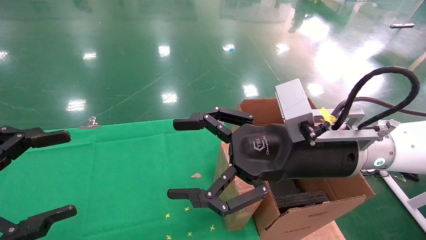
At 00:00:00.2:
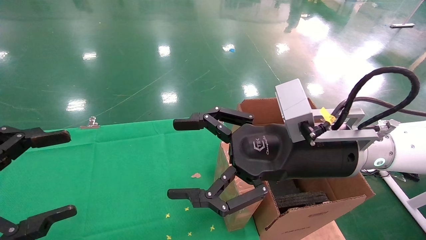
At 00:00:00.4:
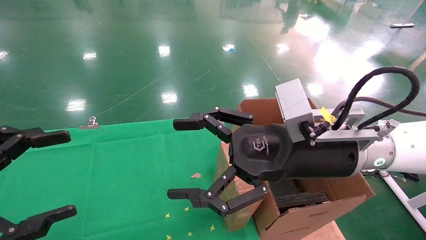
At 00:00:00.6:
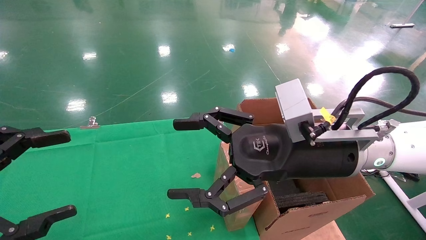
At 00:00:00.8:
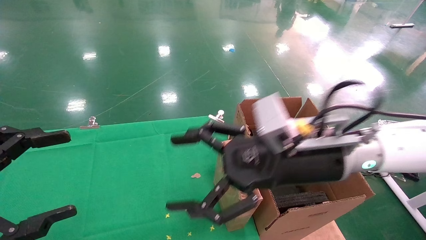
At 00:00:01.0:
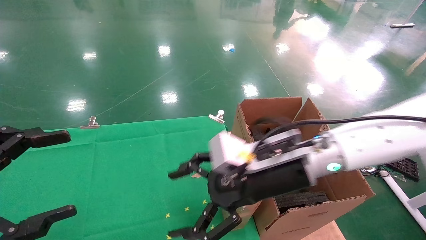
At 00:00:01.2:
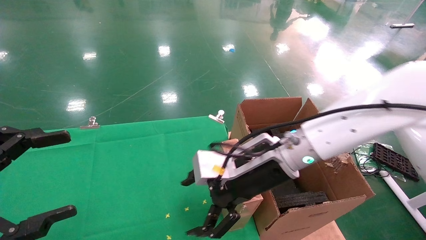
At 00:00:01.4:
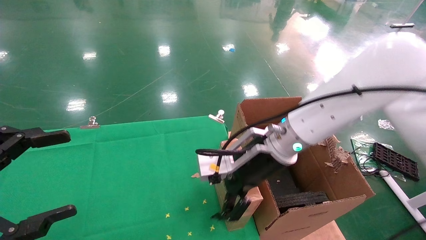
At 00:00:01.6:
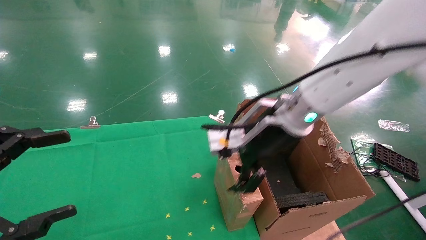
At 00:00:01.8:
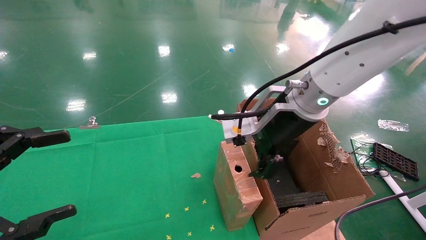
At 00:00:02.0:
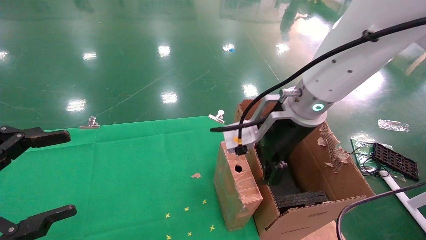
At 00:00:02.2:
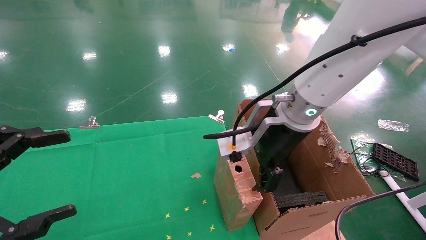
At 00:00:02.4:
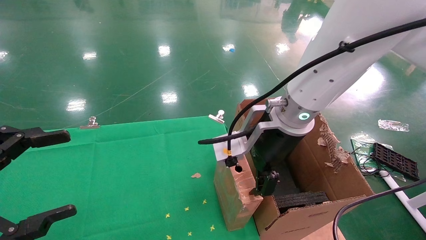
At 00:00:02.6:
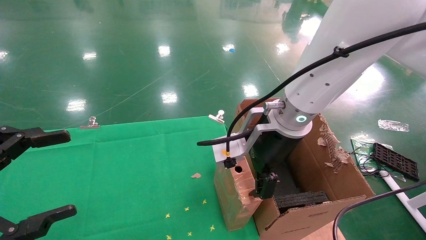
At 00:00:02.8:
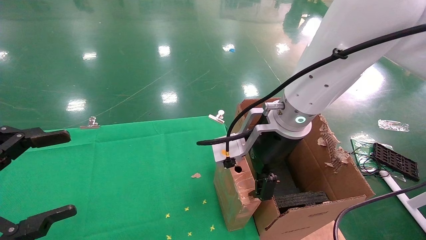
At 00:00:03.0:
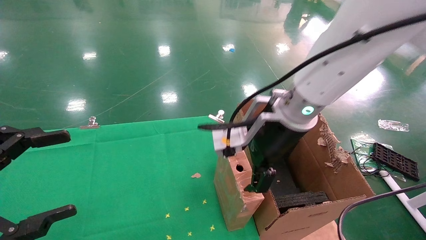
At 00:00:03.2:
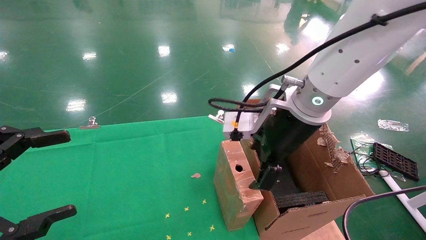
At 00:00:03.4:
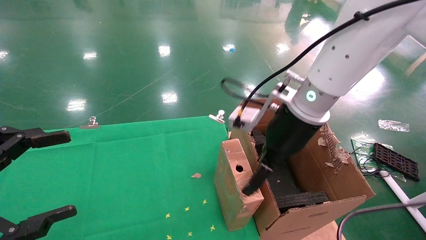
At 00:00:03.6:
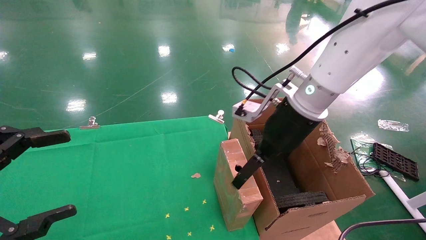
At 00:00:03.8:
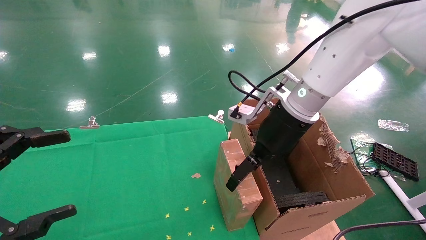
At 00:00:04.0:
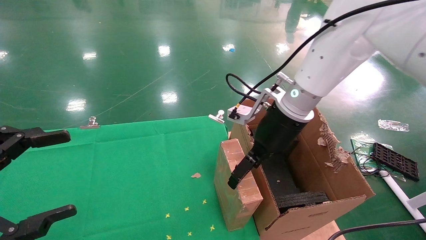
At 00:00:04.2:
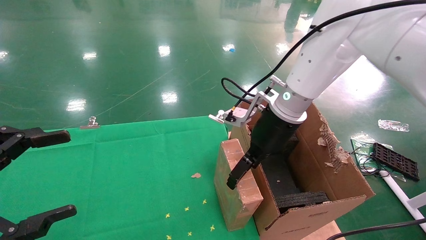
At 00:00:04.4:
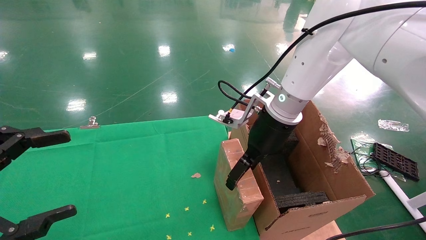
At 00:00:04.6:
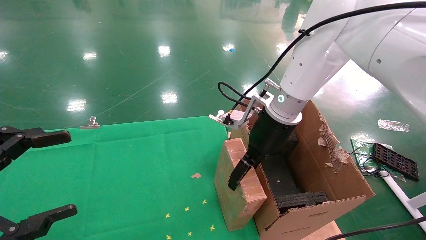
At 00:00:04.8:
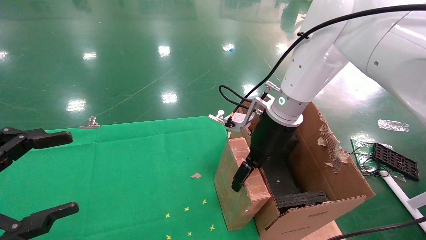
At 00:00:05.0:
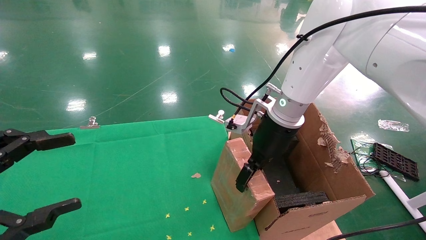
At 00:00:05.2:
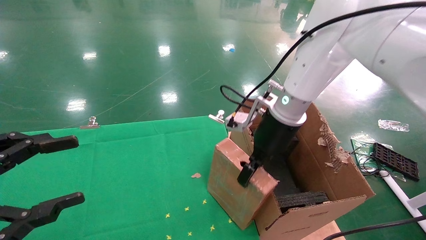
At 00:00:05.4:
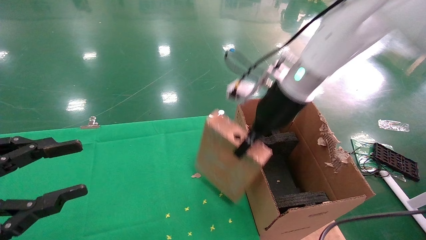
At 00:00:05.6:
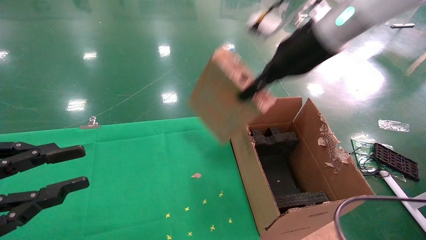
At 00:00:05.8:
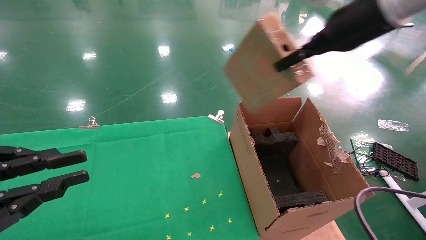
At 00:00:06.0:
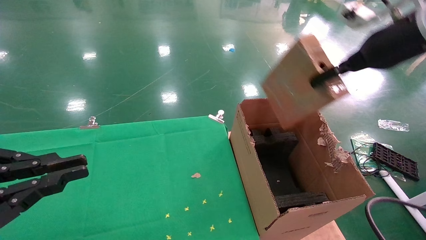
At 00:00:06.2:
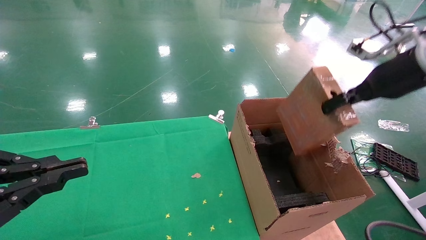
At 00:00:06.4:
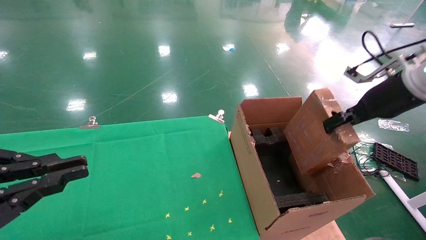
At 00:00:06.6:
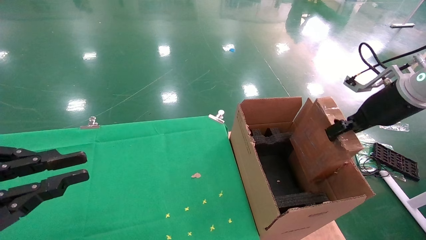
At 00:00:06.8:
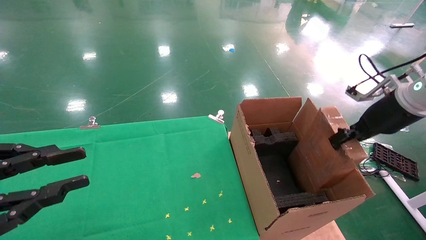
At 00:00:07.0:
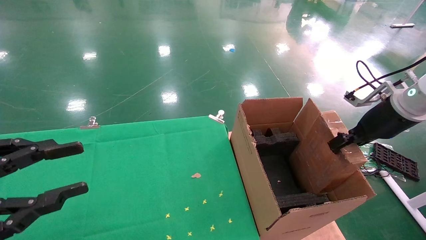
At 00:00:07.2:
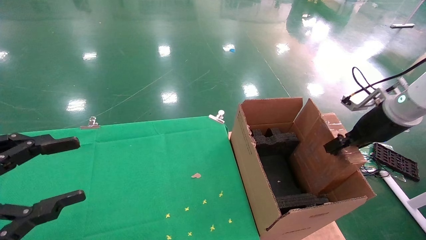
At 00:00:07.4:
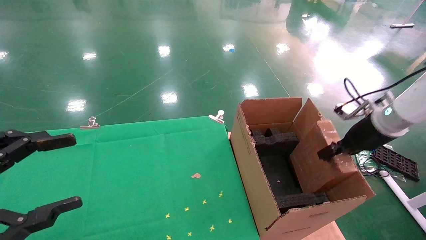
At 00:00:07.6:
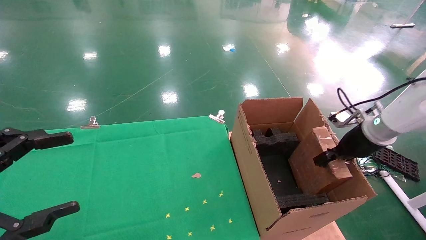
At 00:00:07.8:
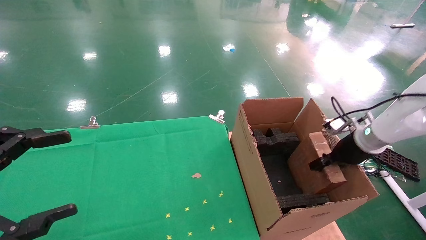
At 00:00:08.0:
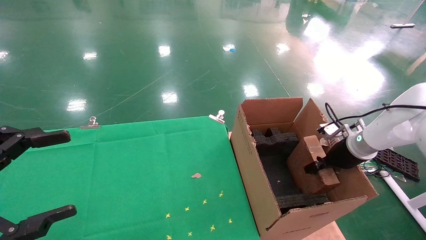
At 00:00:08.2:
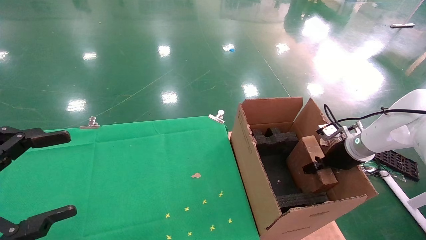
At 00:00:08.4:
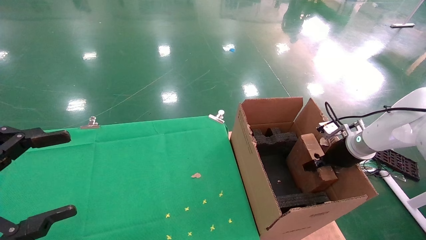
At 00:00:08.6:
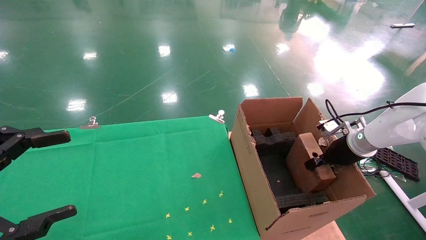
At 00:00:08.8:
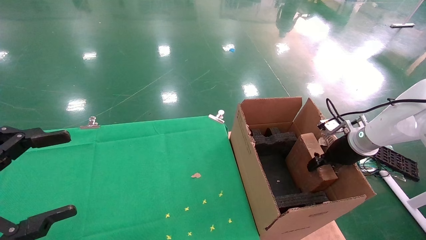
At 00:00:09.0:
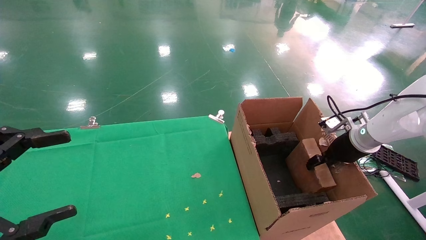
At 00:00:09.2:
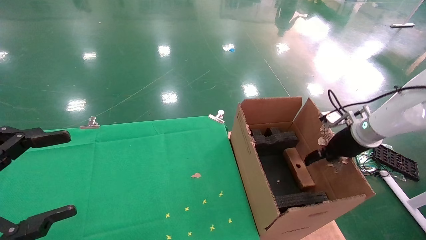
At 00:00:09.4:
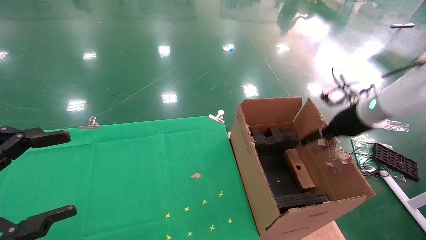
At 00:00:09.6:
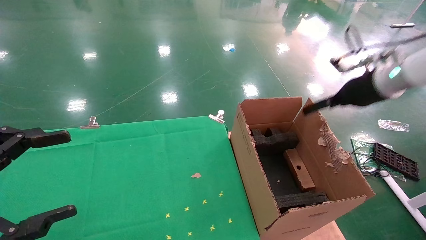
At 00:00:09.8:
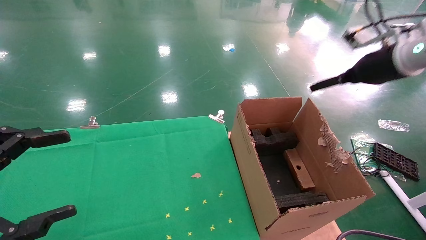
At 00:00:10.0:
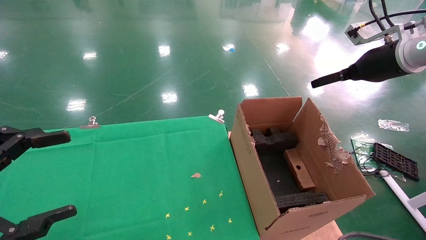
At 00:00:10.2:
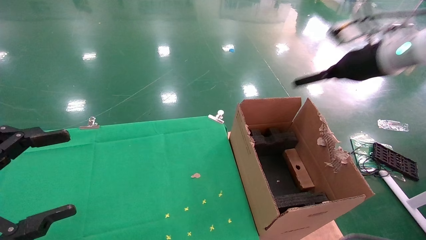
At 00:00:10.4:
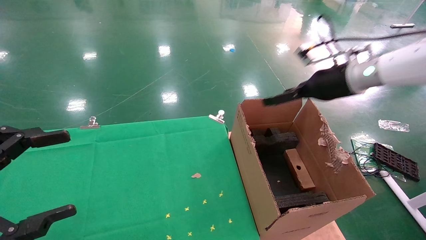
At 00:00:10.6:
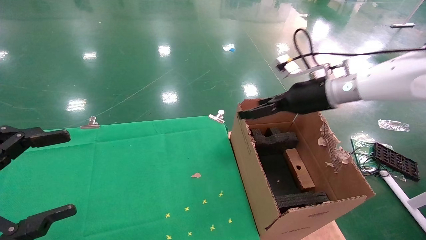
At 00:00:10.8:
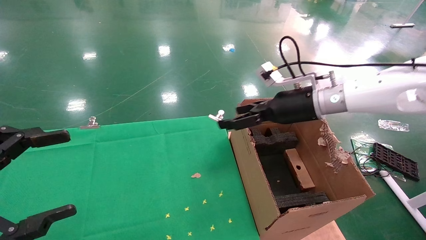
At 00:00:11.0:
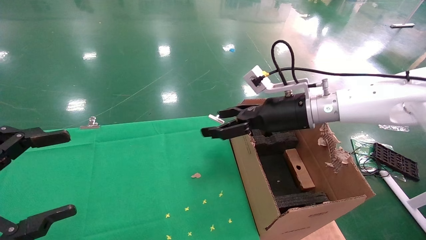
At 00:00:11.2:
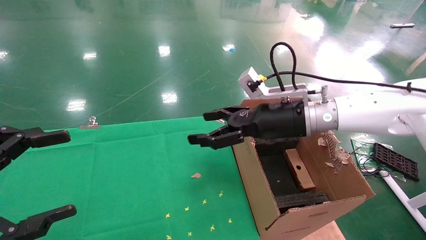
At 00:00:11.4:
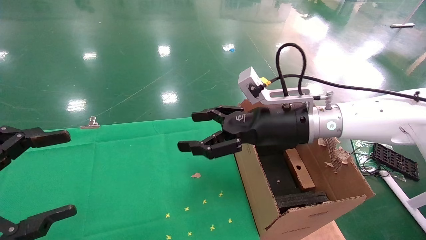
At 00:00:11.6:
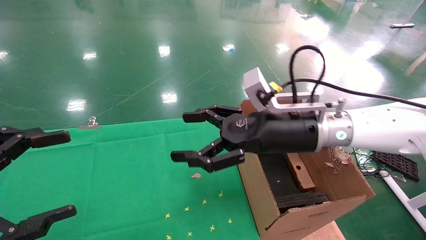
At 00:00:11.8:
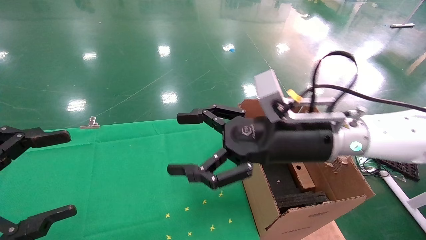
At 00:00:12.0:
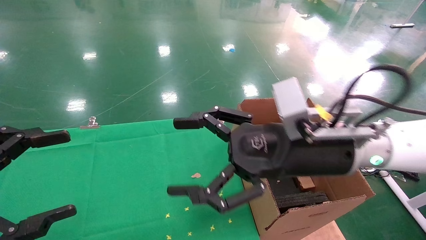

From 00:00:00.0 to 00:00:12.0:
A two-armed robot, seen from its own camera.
Task of the whole recording: using a robotic arm to pick up a cardboard box and palace it the carton.
Step, from 00:00:01.0 to 00:00:05.2: Pick up the mouse and the power cord paper box.
Step, from 00:00:05.4 to 00:00:09.8: Place the mouse and the power cord paper box into the container.
From 00:00:00.0 to 00:00:01.6: The right gripper heads forward, covering roughly 10 cm.
From 00:00:01.6 to 00:00:03.0: The grippers make only small movements.
From 00:00:03.0 to 00:00:04.4: The right gripper shifts about 5 cm forward.
From 00:00:04.4 to 00:00:06.0: The left gripper closes its fingers. The right gripper travels to the right and upward by some 20 cm, and closes up.
From 00:00:06.0 to 00:00:07.6: The left gripper opens its fingers; the right gripper goes approximately 20 cm downward.
From 00:00:07.6 to 00:00:09.0: The grippers move only a little.
From 00:00:09.0 to 00:00:10.4: The right gripper is displaced upward and to the left by about 15 cm, and opens up.
From 00:00:10.4 to 00:00:12.0: The right gripper heads to the left and backward, covering approximately 20 cm.

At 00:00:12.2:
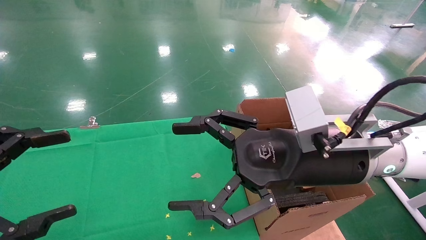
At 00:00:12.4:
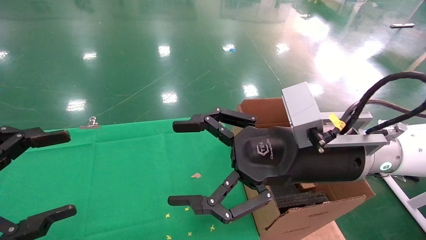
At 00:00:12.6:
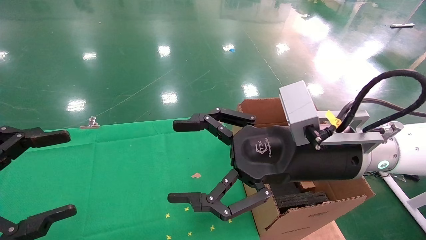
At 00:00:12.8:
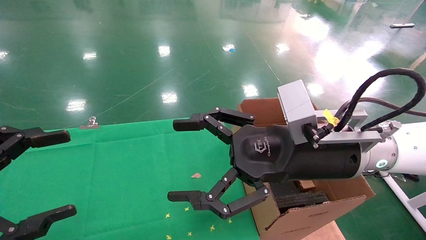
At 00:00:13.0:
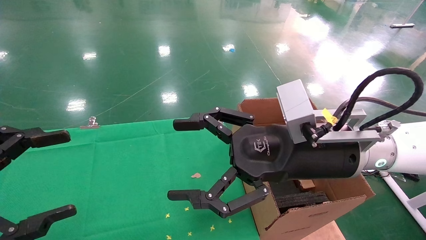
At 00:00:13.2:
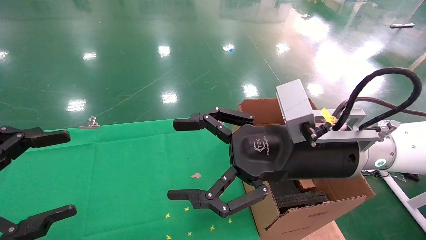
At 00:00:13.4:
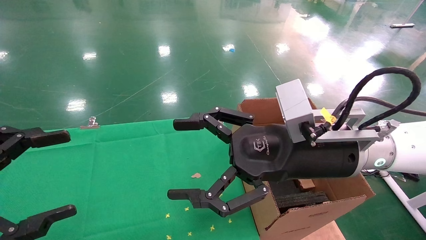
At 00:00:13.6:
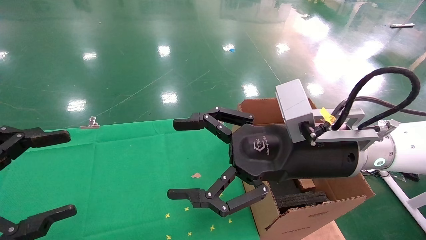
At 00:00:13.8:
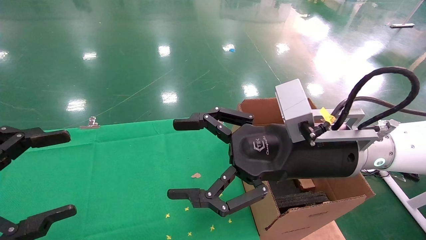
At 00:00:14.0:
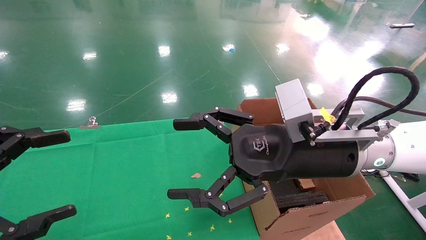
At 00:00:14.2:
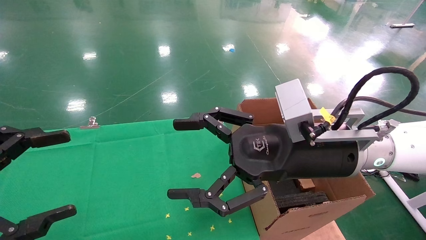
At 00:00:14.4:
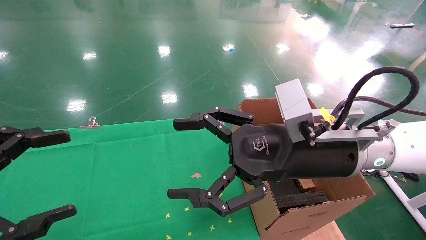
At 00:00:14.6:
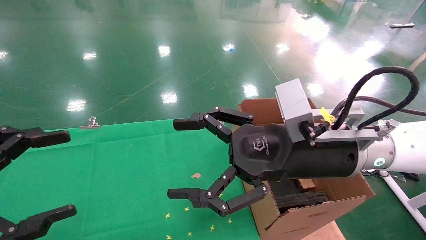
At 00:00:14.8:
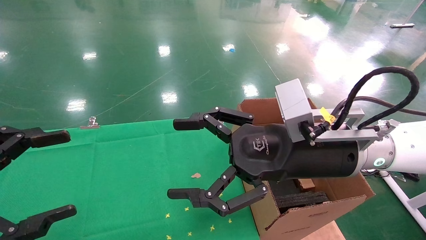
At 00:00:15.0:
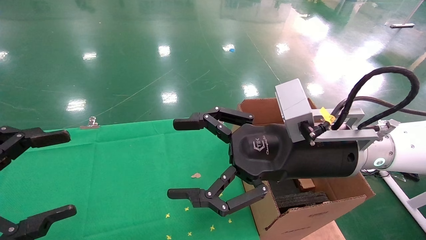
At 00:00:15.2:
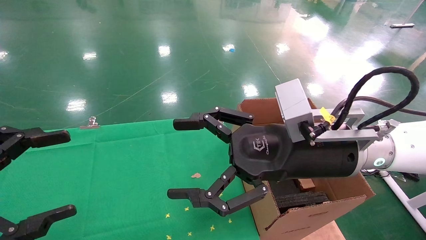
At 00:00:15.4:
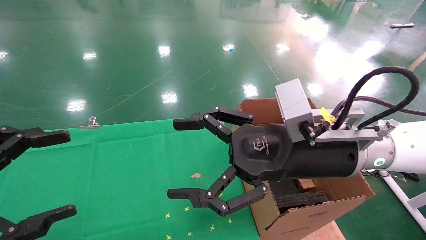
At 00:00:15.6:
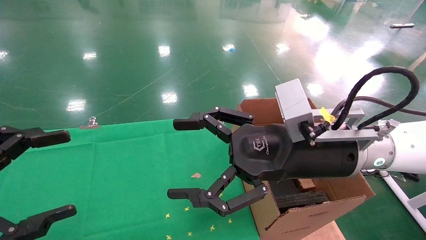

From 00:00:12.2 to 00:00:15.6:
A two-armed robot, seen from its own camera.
Task of the whole recording: using a robotic arm to pick up a cardboard box and palace it the carton.
From 00:00:12.2 to 00:00:15.6: Neither gripper changes place.
